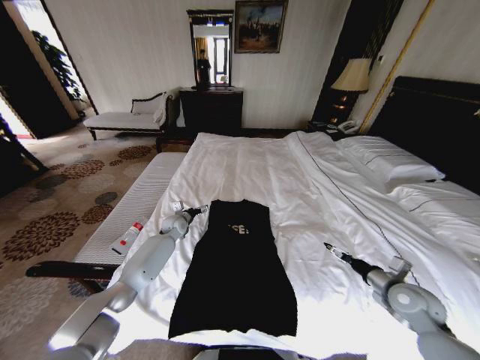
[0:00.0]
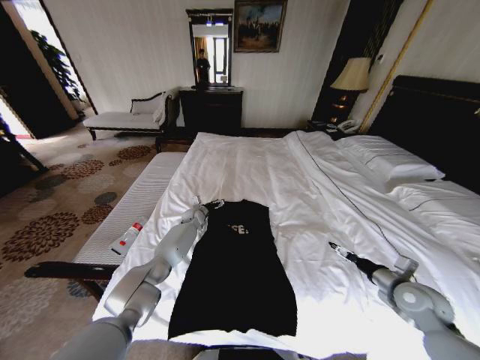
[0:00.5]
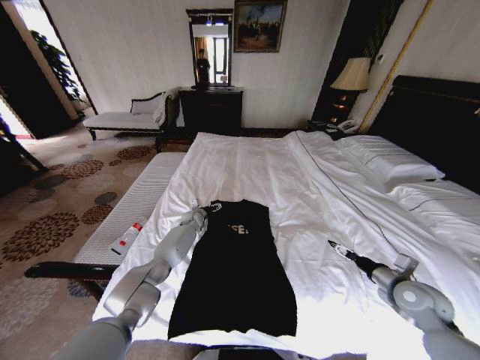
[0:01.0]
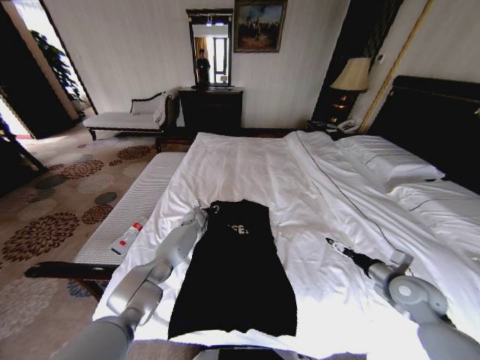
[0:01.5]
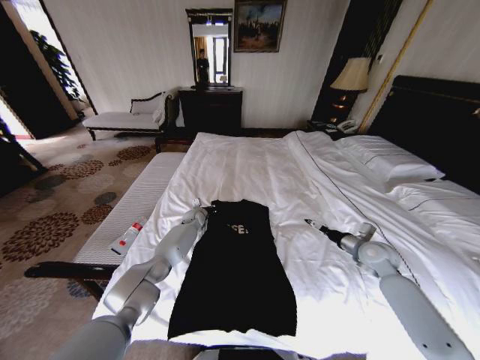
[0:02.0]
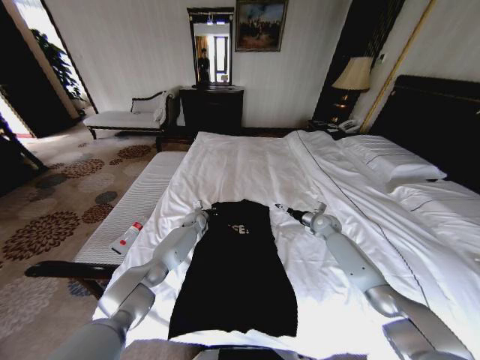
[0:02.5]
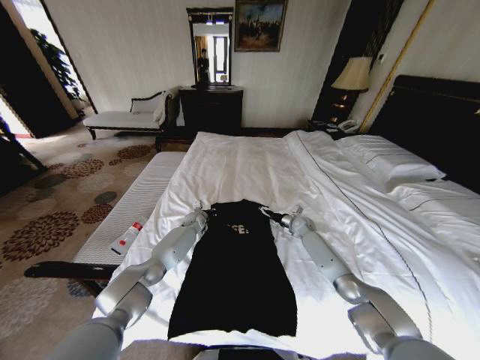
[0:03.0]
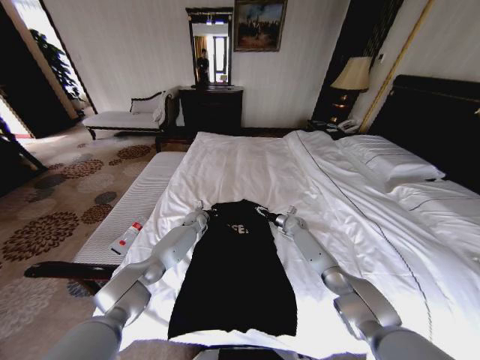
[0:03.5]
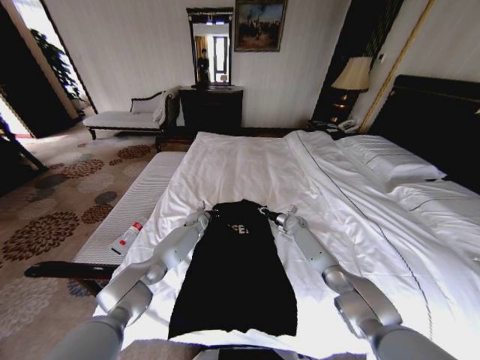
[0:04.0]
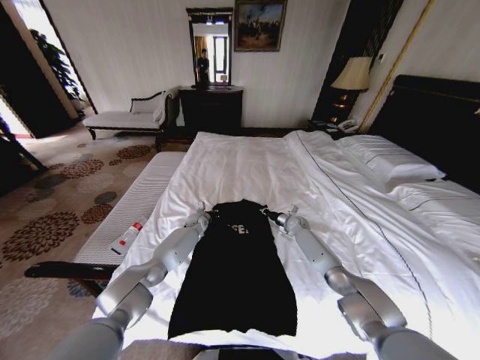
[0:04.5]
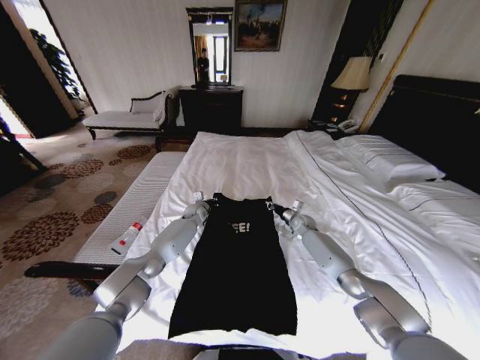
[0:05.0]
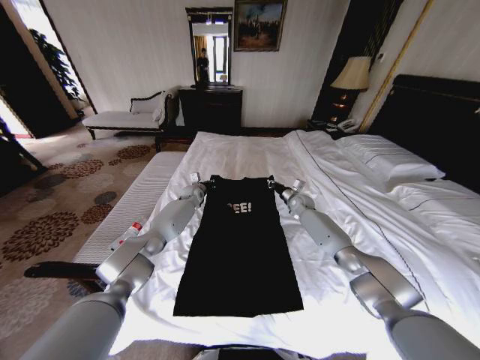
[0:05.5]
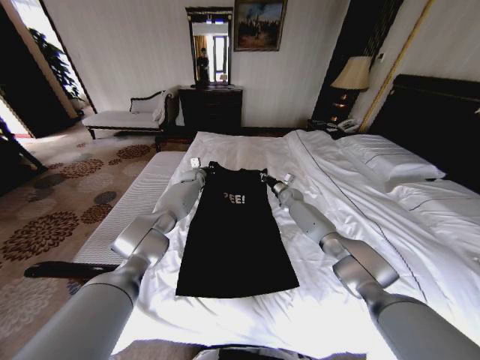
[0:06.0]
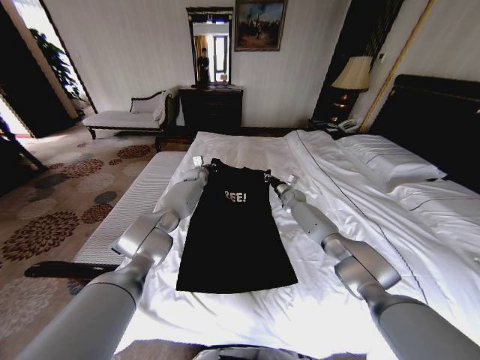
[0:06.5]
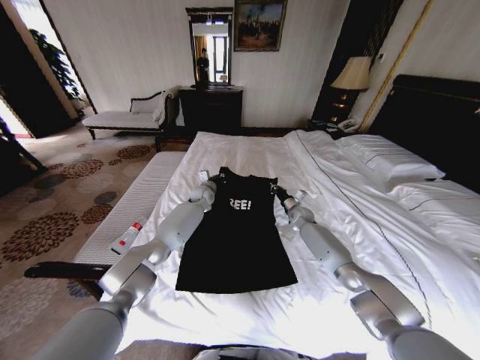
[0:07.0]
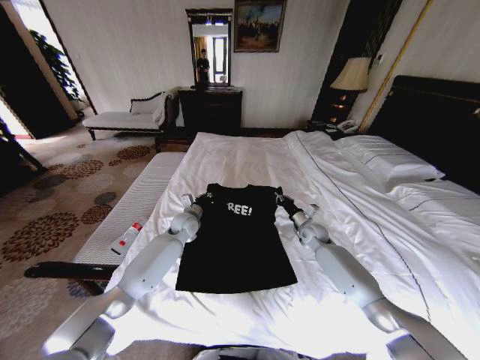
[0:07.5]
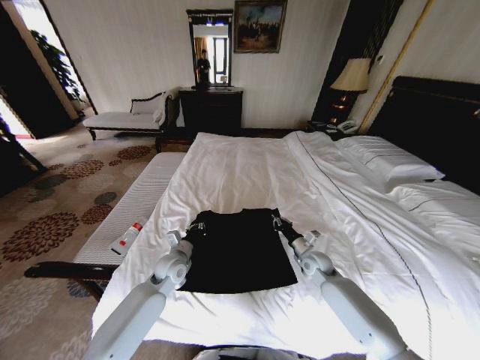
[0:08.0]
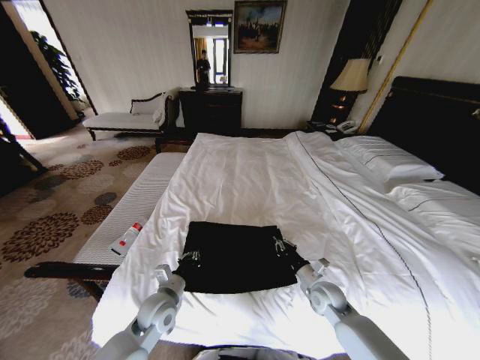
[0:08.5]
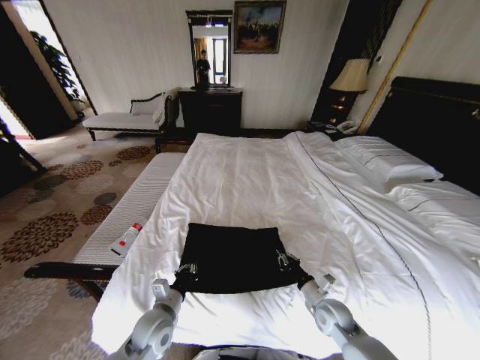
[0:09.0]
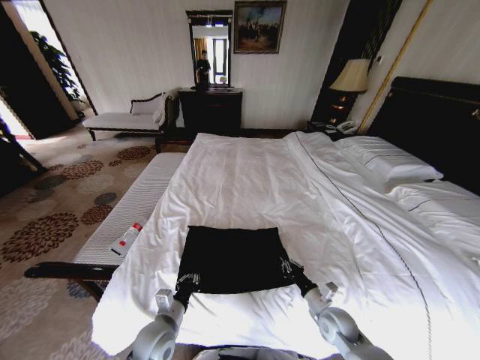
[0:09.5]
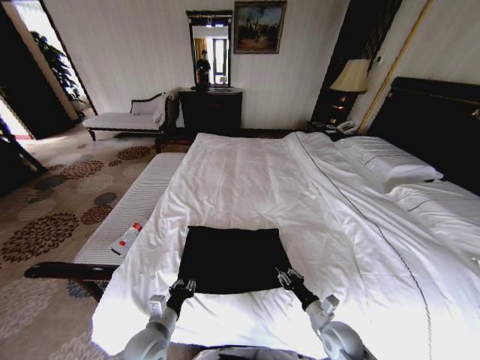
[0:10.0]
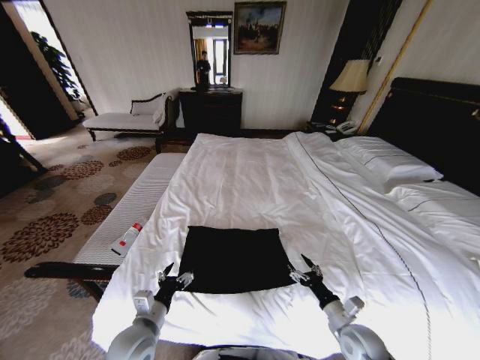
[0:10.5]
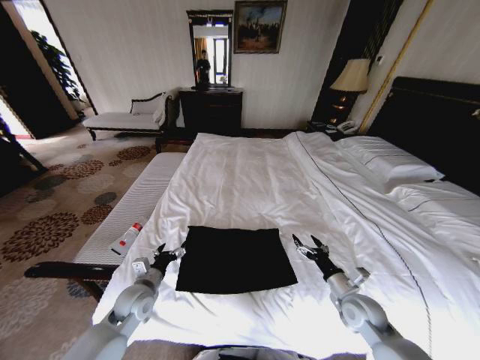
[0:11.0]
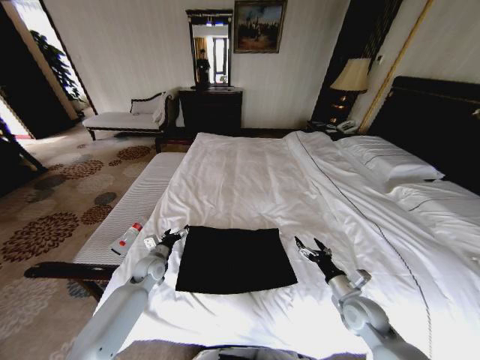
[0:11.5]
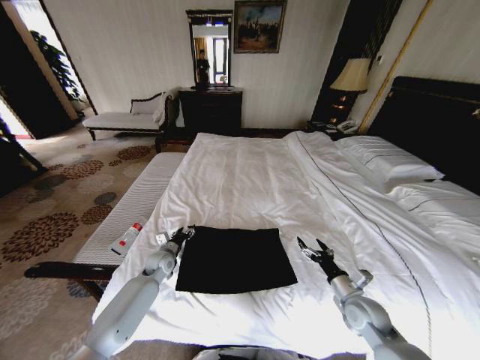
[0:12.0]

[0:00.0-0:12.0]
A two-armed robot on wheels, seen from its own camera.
Task of the whole recording: Fold the clothes on the bed.
0:00.0 to 0:02.0: The right gripper moves forward, roughly 10 cm; the left gripper is displaced forward, to the right and downward by about 10 cm, and closes.
0:02.0 to 0:04.0: The right gripper heads forward, to the left and downward, covering approximately 30 cm, and closes.
0:04.0 to 0:06.0: The grippers both shift upward and forward by about 15 cm.
0:06.0 to 0:08.0: Both grippers move backward, roughly 30 cm.
0:08.0 to 0:10.0: The grippers both shift backward by roughly 20 cm.
0:10.0 to 0:12.0: The right gripper moves upward and to the right, roughly 10 cm, and opens up. The left gripper heads forward, covering approximately 25 cm, and opens its fingers.

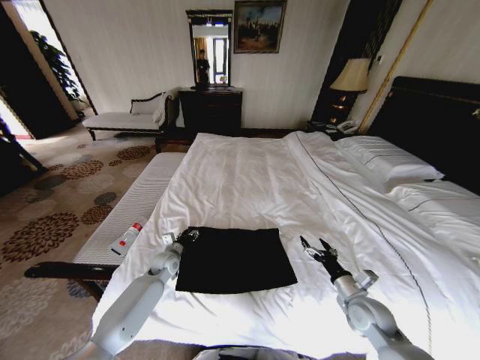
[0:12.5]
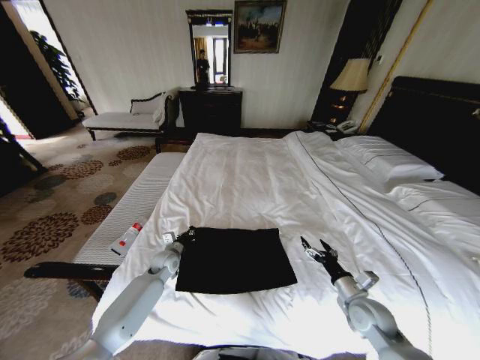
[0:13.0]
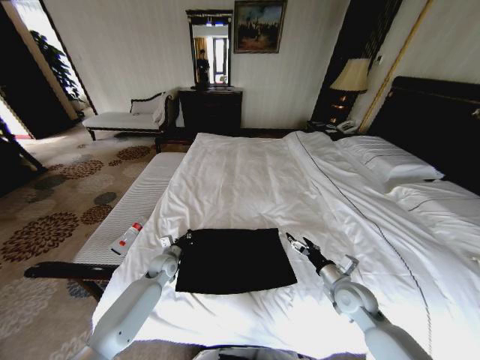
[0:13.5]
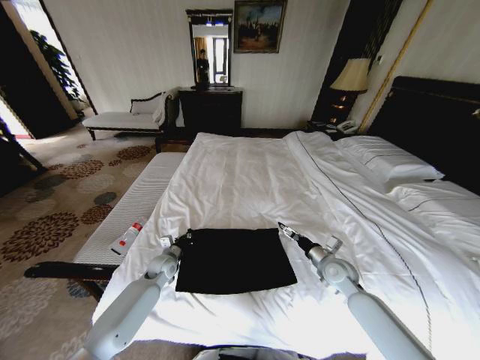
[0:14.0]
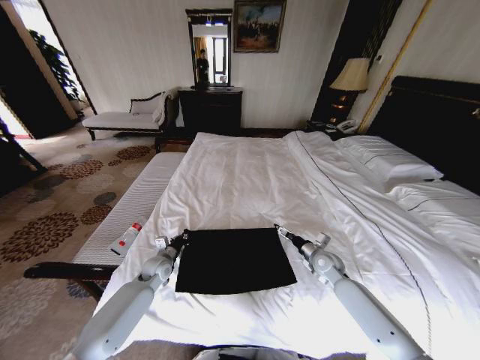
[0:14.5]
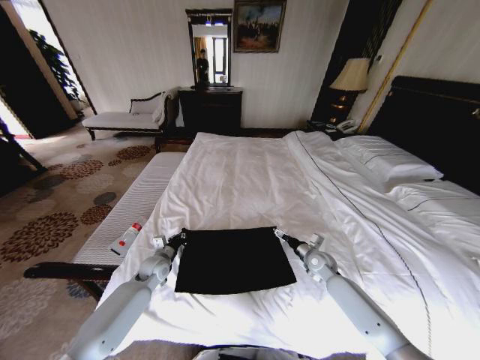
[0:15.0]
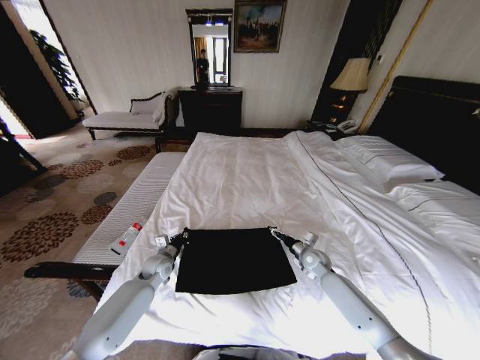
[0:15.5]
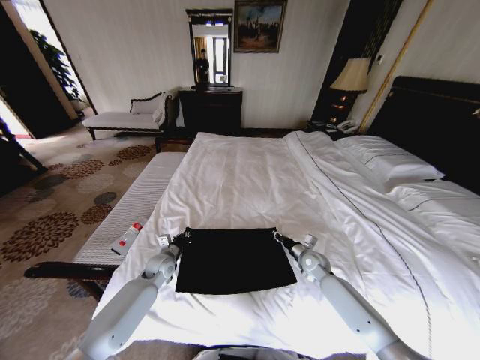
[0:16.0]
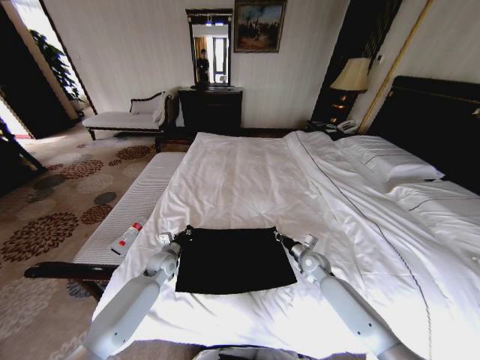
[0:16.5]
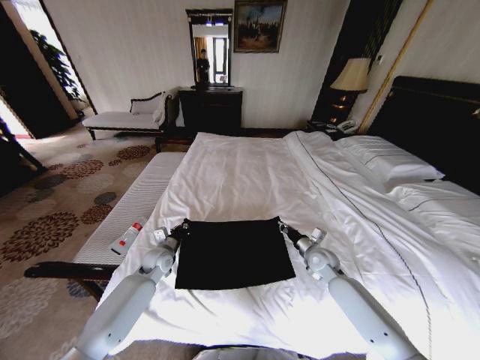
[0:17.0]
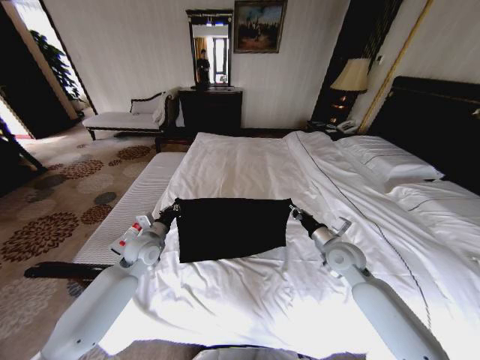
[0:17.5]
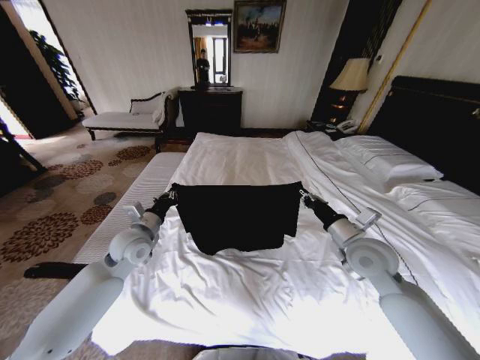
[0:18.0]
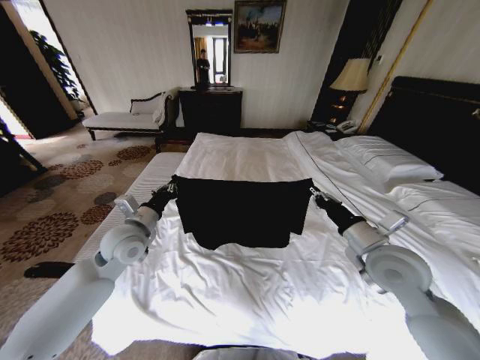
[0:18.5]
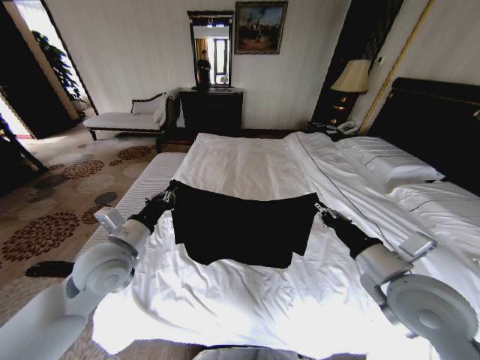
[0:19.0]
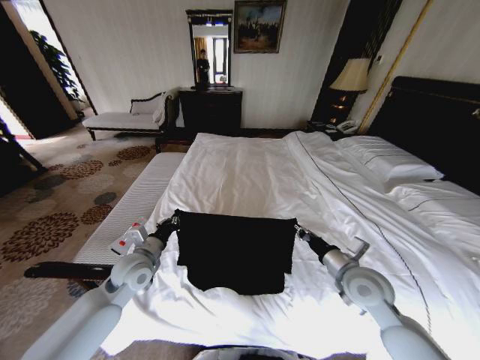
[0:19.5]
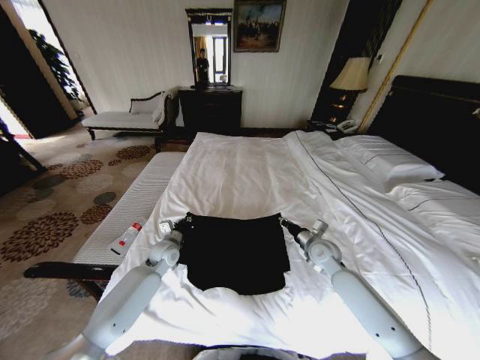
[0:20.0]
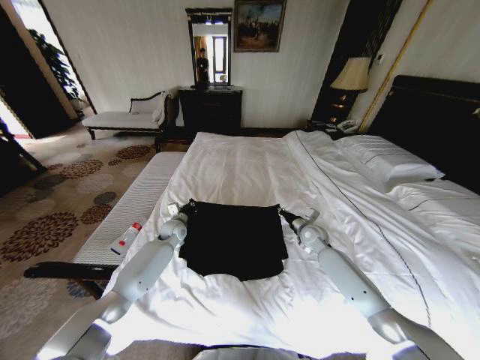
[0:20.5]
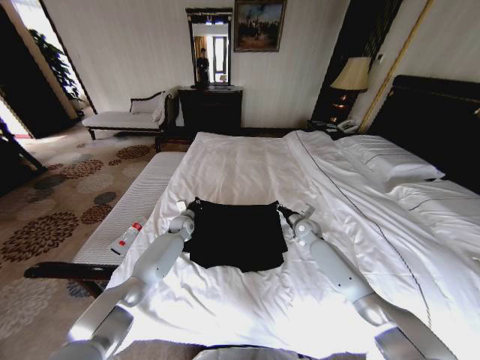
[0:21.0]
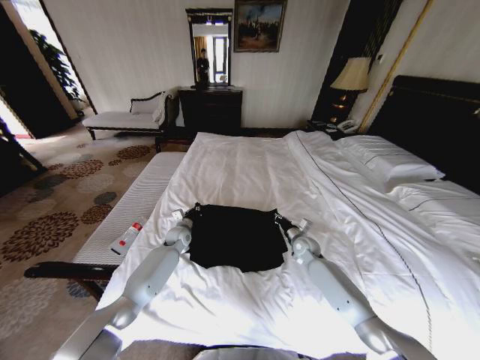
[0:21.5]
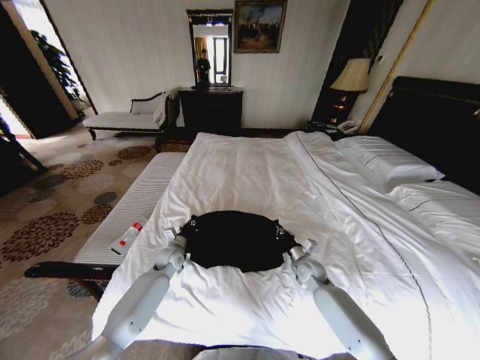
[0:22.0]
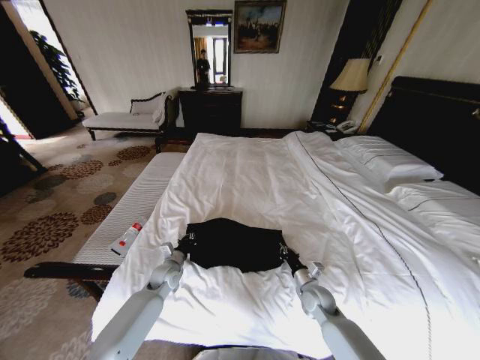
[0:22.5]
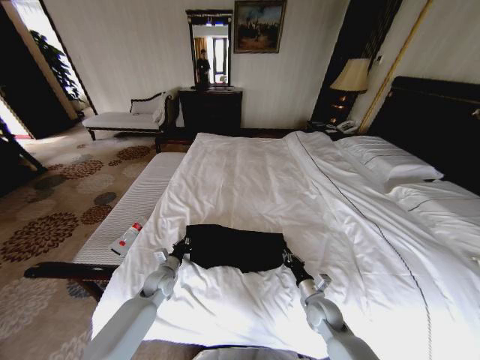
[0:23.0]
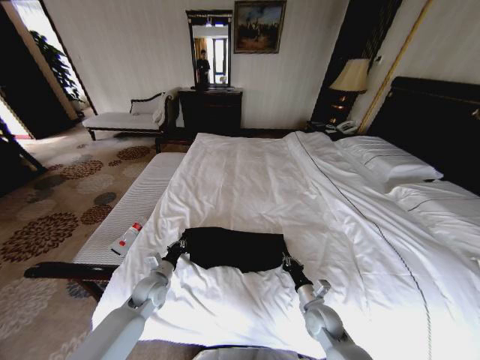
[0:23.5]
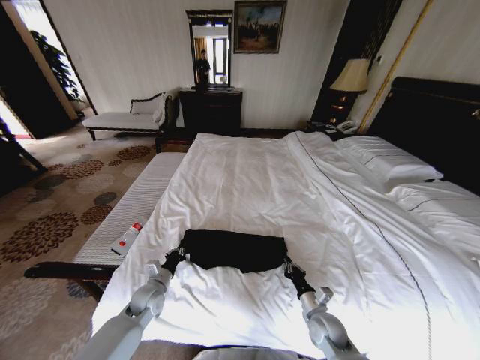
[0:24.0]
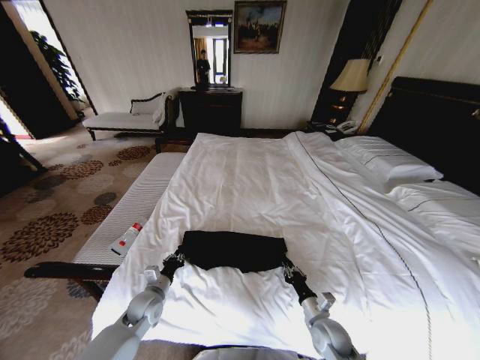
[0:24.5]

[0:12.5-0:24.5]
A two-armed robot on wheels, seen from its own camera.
Task of the whole recording: Fold the clothes on the bed.
0:12.5 to 0:14.5: The left gripper closes its fingers. The right gripper travels forward by some 15 cm.
0:14.5 to 0:16.5: The right gripper closes its fingers.
0:16.5 to 0:18.5: The left gripper travels upward by about 20 cm, while the right gripper moves upward and backward, approximately 30 cm.
0:18.5 to 0:20.5: The right gripper goes approximately 25 cm forward and downward, while the left gripper shifts approximately 25 cm downward and forward.
0:20.5 to 0:22.5: The two grippers go roughly 20 cm backward and downward.
0:22.5 to 0:24.5: Both grippers travel together backward, approximately 10 cm.

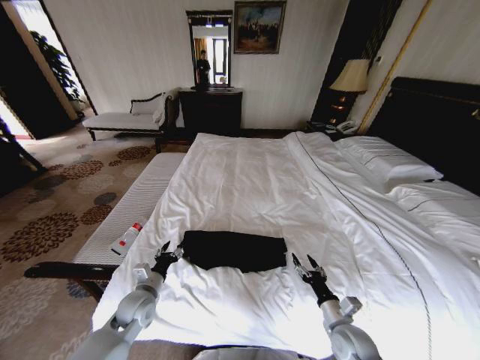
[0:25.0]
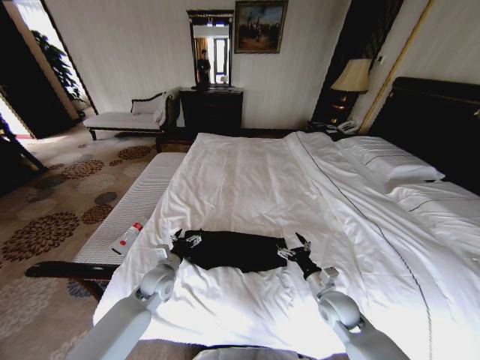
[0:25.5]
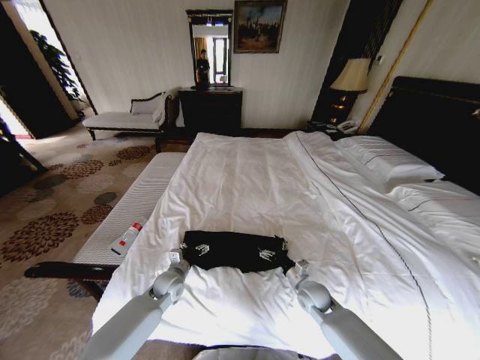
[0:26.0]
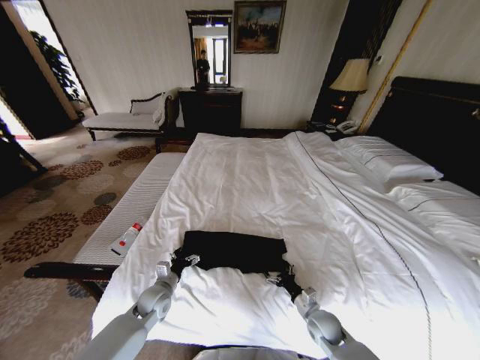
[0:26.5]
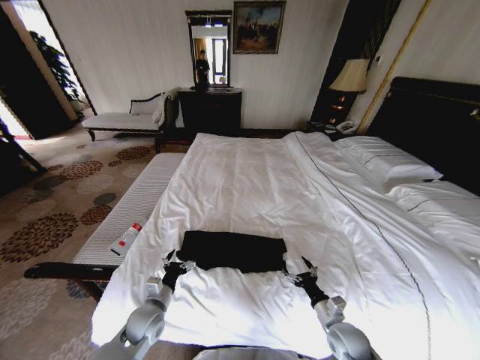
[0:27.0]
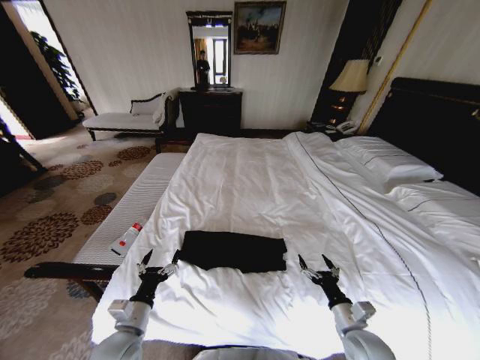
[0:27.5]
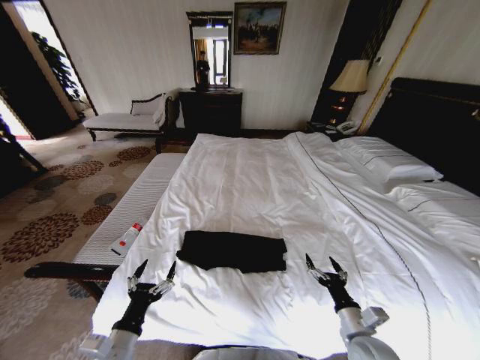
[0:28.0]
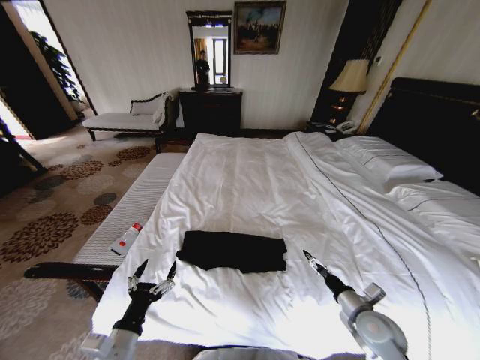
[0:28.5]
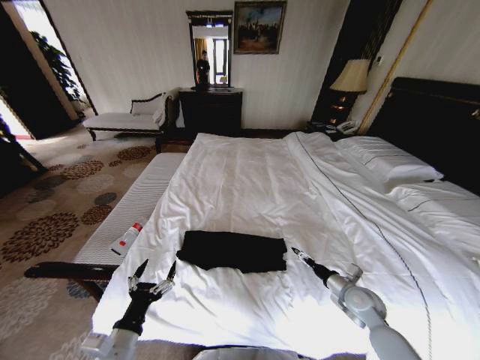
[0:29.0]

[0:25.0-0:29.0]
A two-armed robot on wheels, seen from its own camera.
Task of the whole recording: Fold the clothes on the bed.
0:25.0 to 0:27.0: The left gripper travels forward and back again, some 5 cm each way, while the right gripper travels forward and back again, roughly 10 cm each way.
0:27.0 to 0:29.0: The right gripper is displaced forward, to the right and upward by about 10 cm; the left gripper is displaced backward and upward by some 15 cm.
